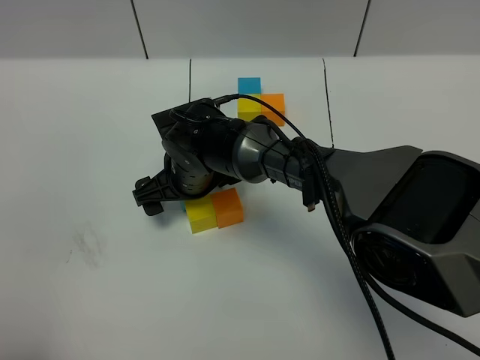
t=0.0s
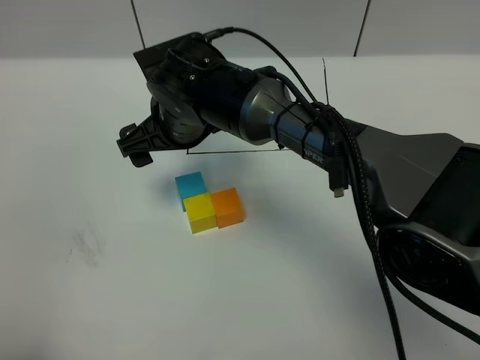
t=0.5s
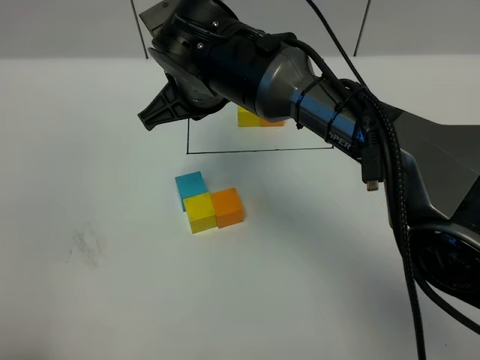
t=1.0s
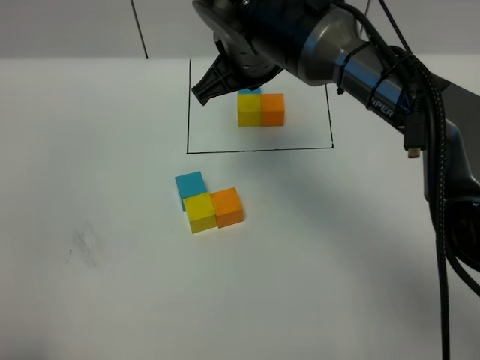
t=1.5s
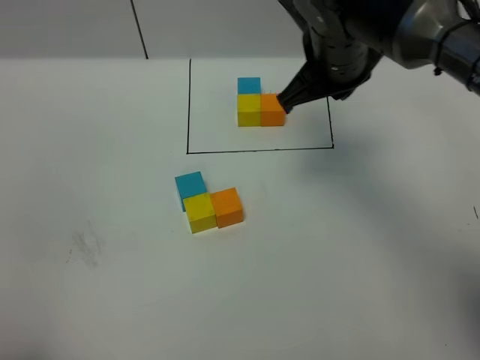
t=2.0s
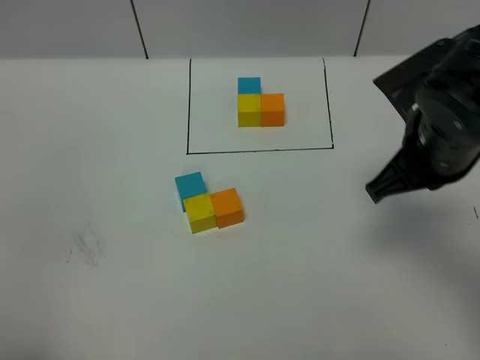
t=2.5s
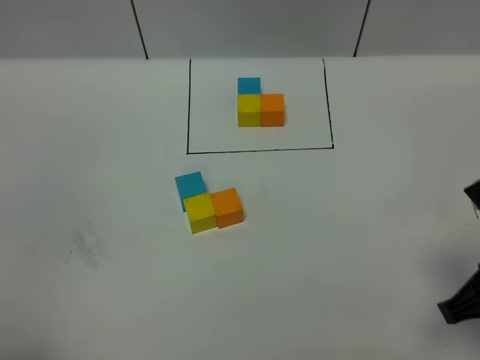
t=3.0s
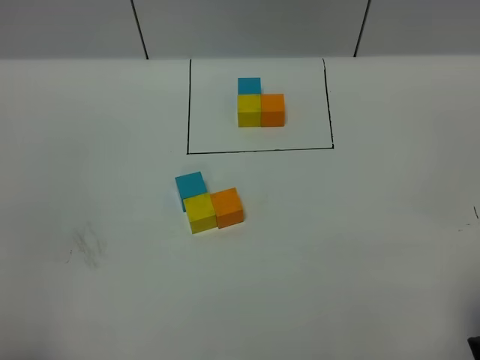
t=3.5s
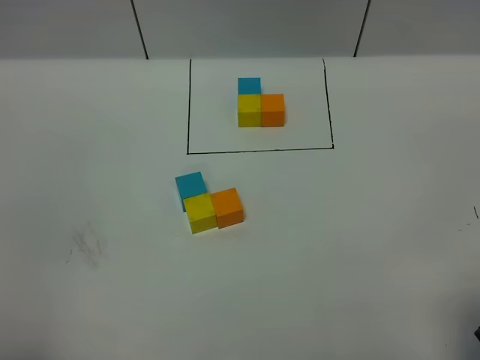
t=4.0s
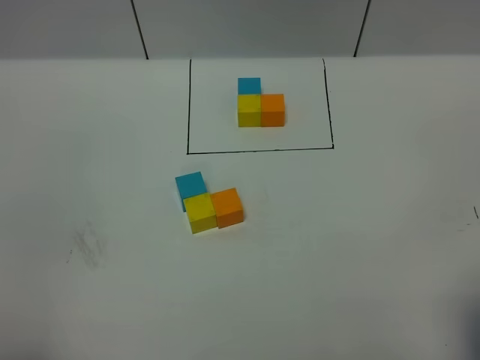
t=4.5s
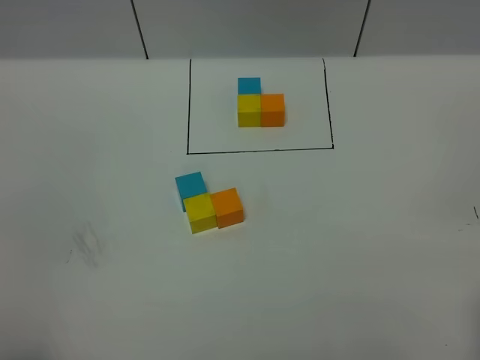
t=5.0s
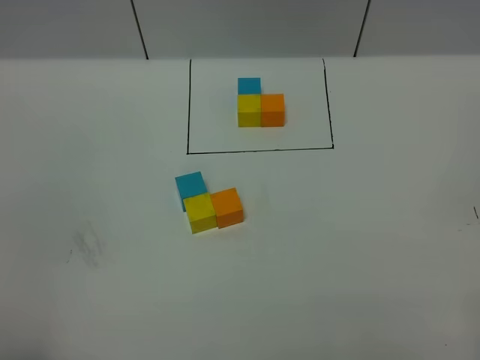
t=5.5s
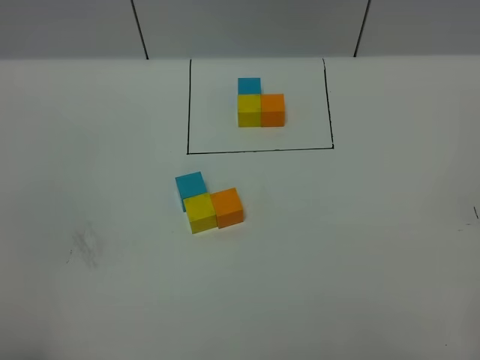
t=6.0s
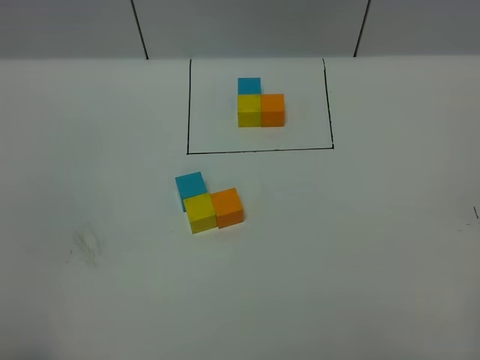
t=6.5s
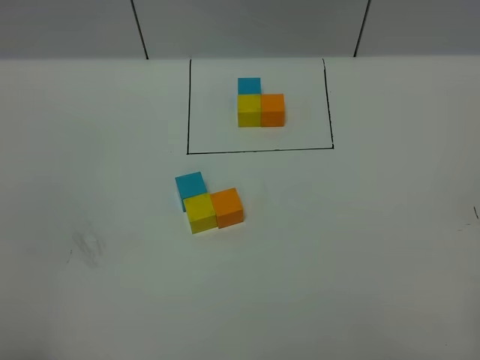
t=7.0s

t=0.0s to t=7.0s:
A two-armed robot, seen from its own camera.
Task of the whole recording: According to the building block template in front, assemble the scattered blocks together.
t=0.0s to t=2.0s: The right gripper moves to the right and upward, approximately 25 cm, and closes up.
t=2.0s to t=3.5s: The right gripper shifts roughly 30 cm backward and to the right.
